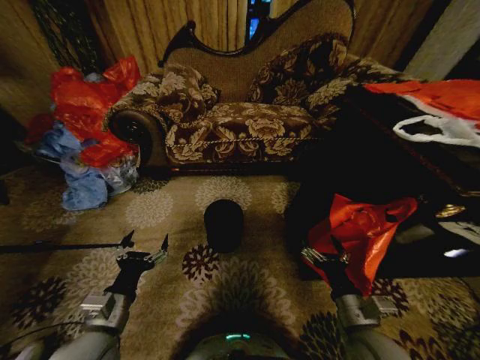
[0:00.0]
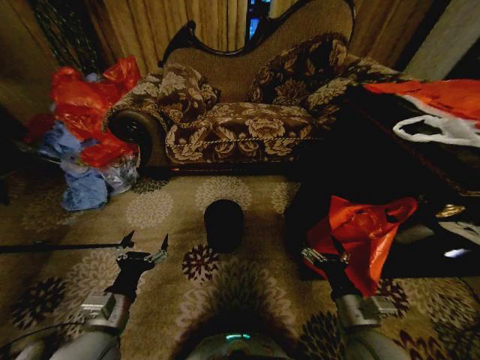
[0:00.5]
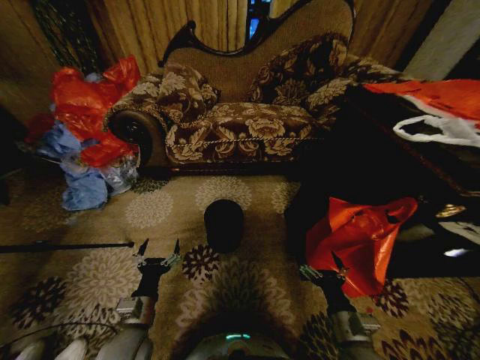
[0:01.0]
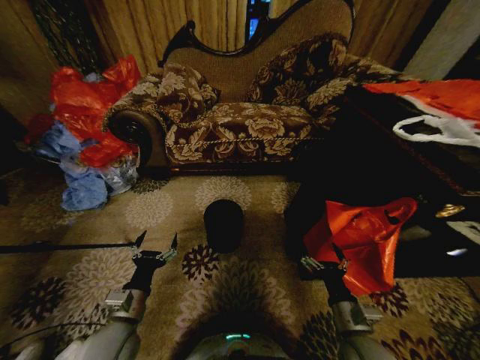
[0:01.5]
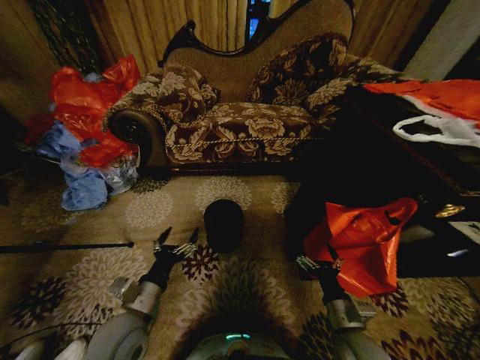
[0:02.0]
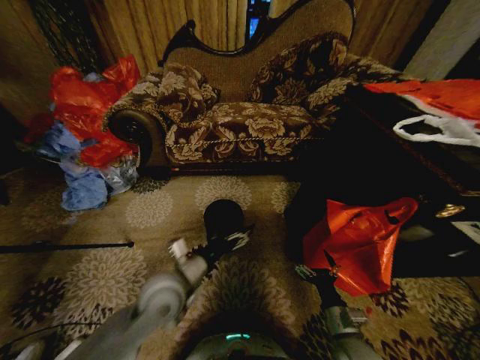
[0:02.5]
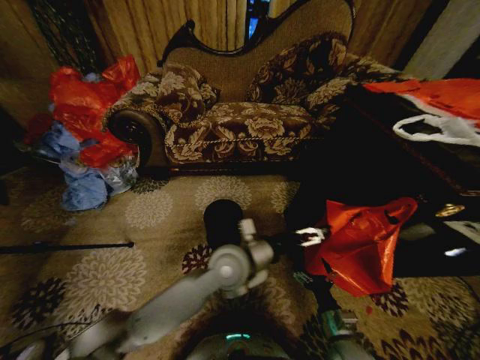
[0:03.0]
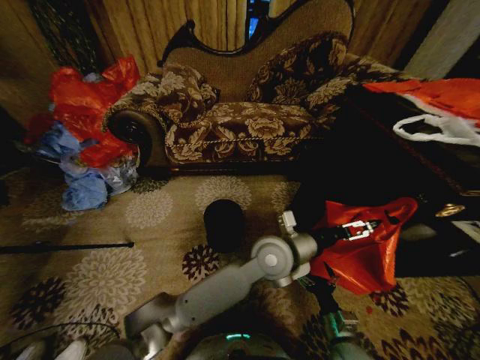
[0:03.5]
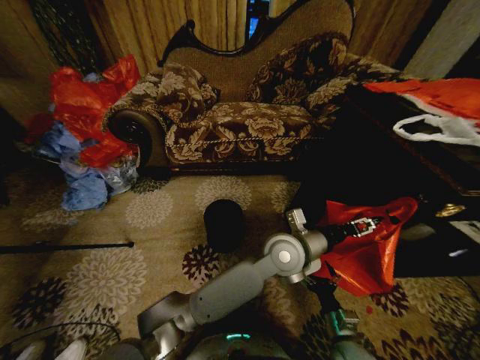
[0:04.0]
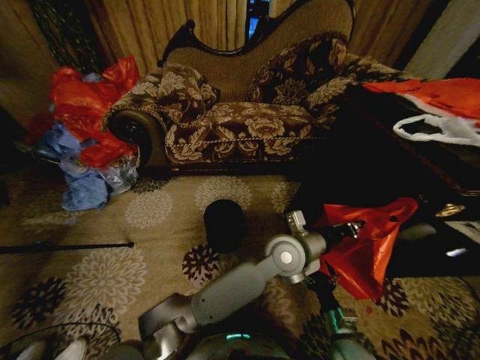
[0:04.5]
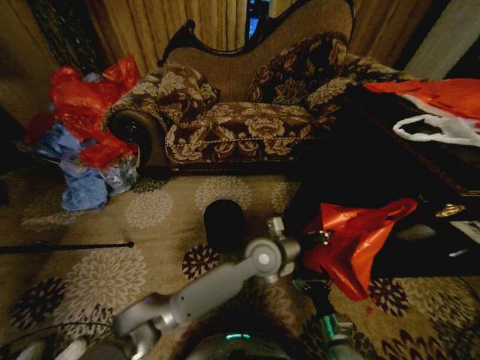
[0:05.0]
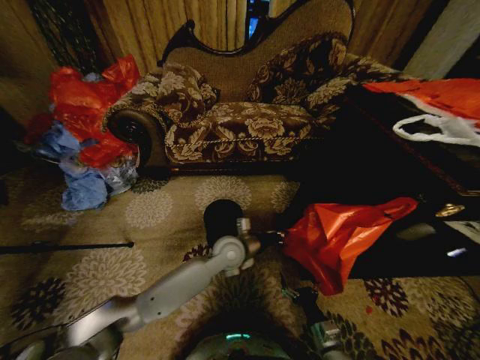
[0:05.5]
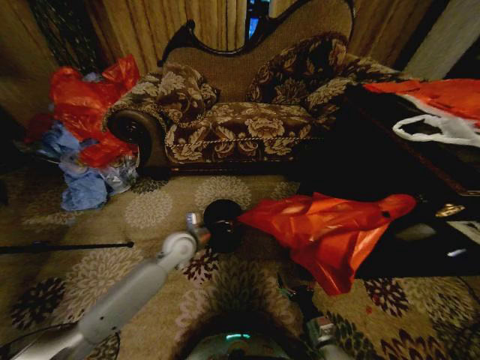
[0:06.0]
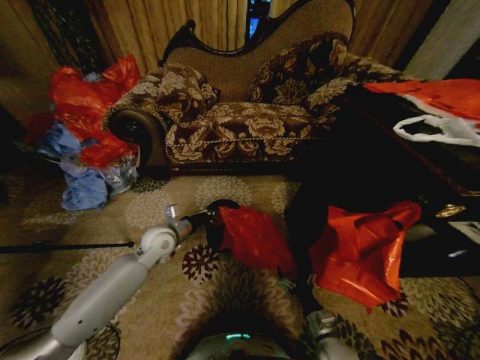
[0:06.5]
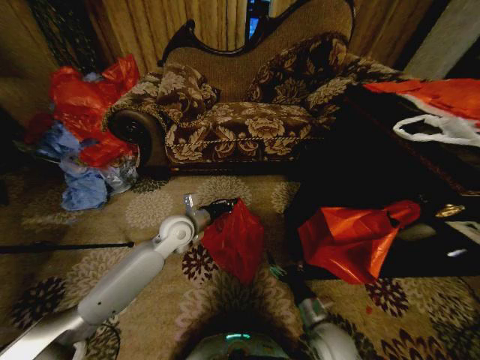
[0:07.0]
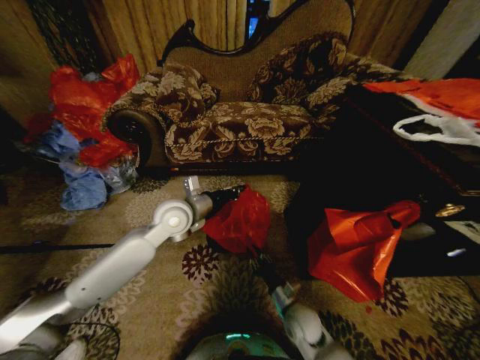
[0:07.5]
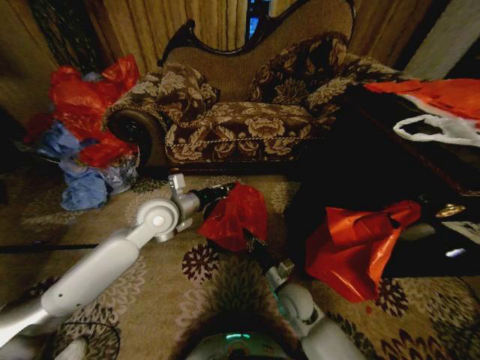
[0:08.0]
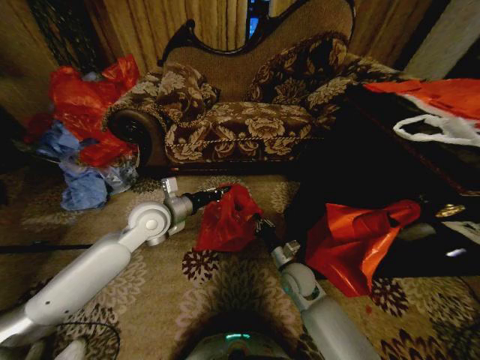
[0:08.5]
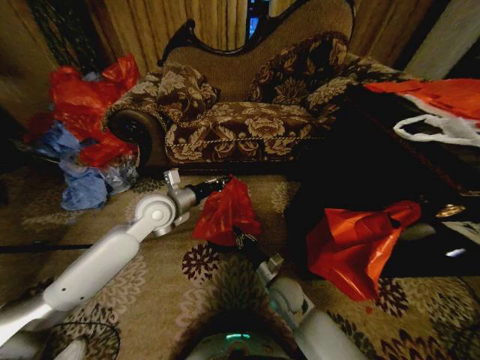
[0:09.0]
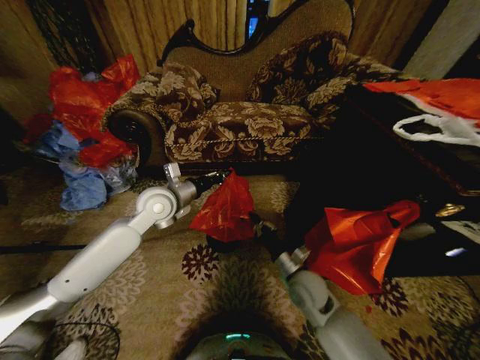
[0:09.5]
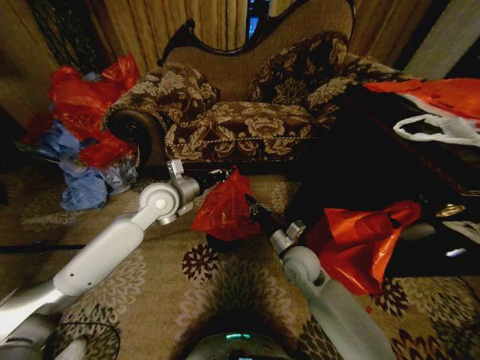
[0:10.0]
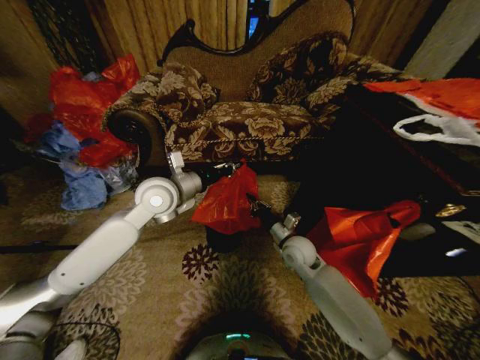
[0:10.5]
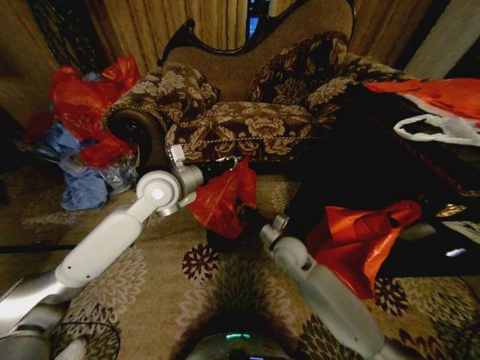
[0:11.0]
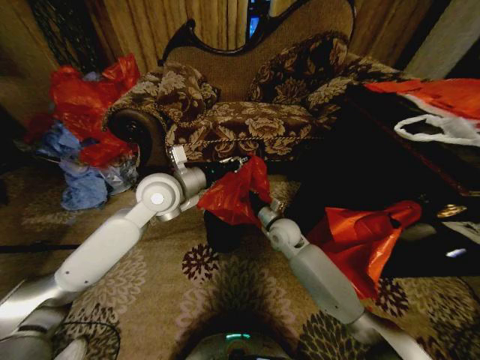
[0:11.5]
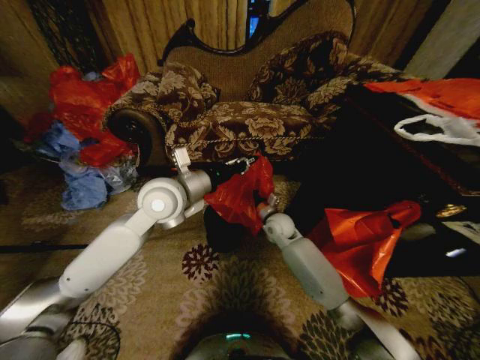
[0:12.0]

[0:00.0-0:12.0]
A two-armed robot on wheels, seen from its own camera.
Task of the whole recording: Place a garbage bag over the trash bin.
0:02.0 to 0:04.0: The right gripper is displaced downward by roughly 5 cm. Meanwhile the left gripper heads to the right and forward, covering some 35 cm, and closes up.
0:04.0 to 0:06.0: The left gripper travels to the left by about 30 cm, and closes; the right gripper moves downward, some 5 cm.
0:06.0 to 0:08.0: The right gripper moves forward, to the left and upward, approximately 20 cm, and closes; the left gripper heads upward, covering some 15 cm.
0:08.0 to 0:10.0: The right gripper is displaced upward and forward by roughly 10 cm.
0:10.0 to 0:12.0: The left gripper shifts by roughly 10 cm; the right gripper heads forward, covering roughly 15 cm.

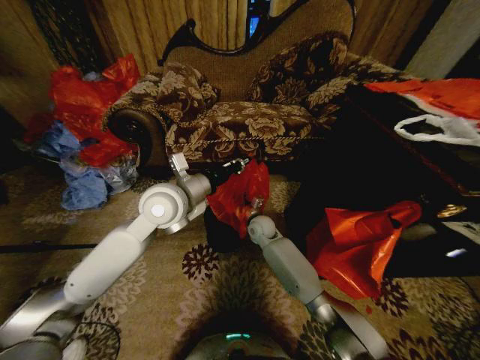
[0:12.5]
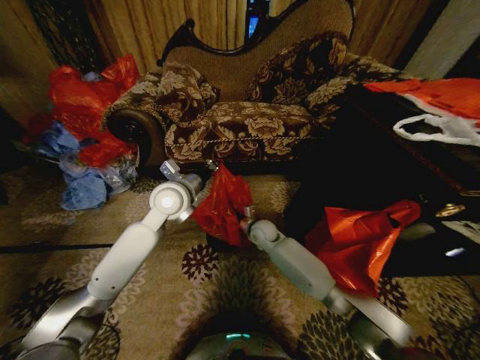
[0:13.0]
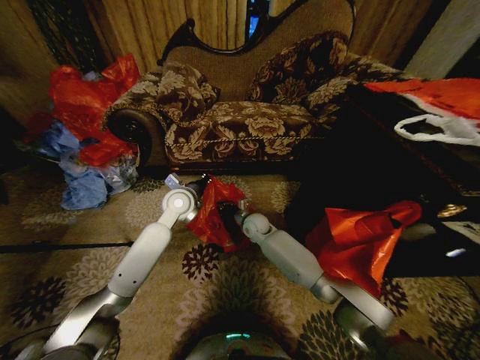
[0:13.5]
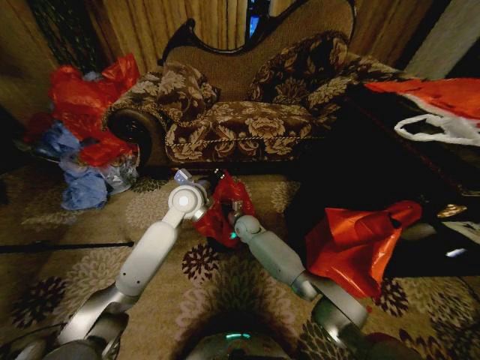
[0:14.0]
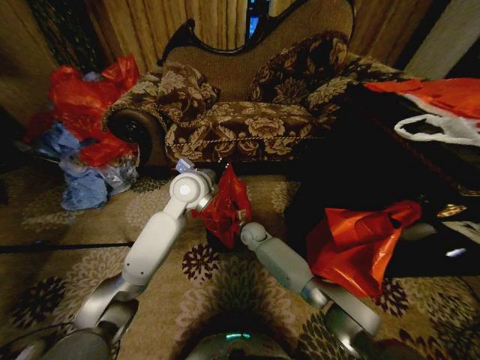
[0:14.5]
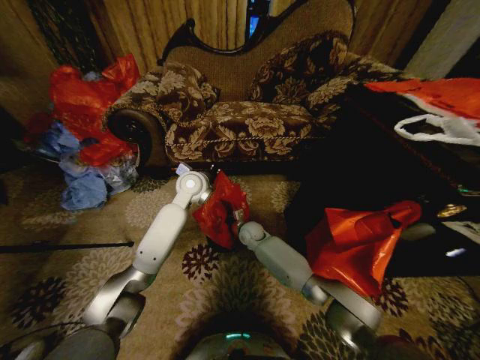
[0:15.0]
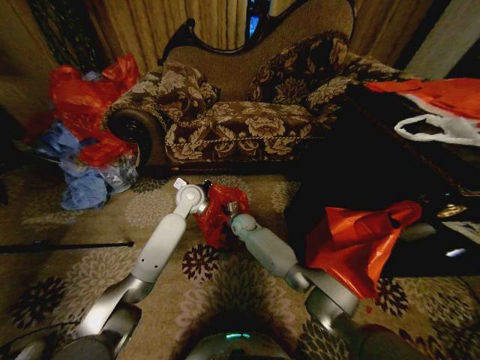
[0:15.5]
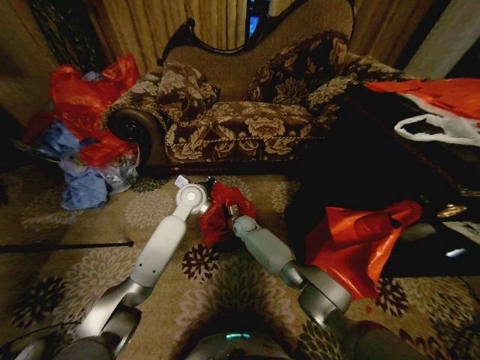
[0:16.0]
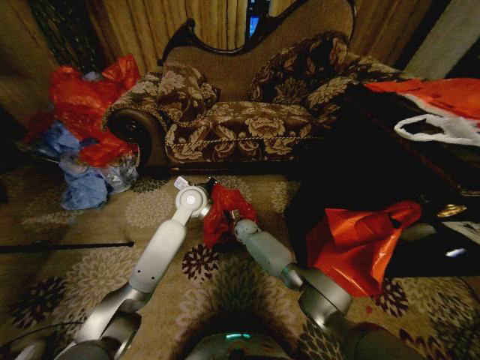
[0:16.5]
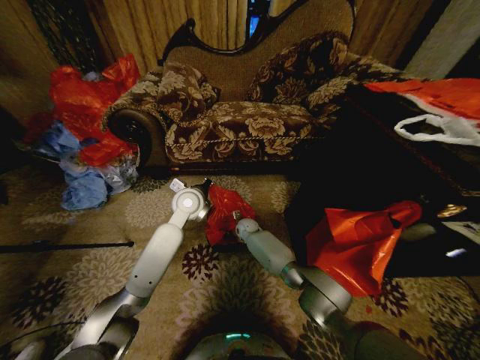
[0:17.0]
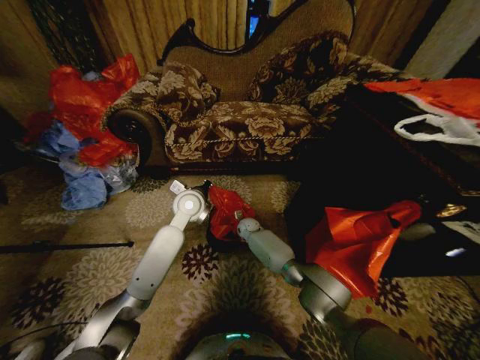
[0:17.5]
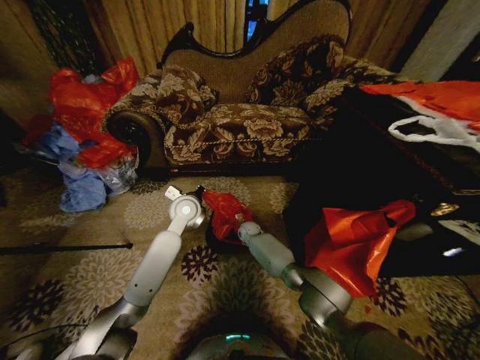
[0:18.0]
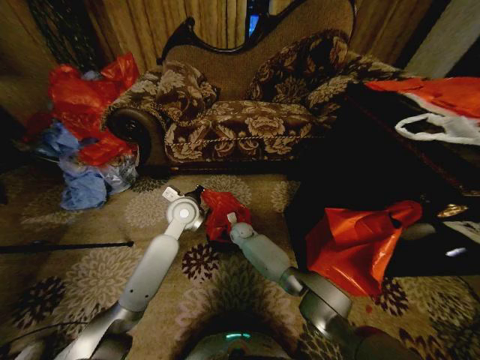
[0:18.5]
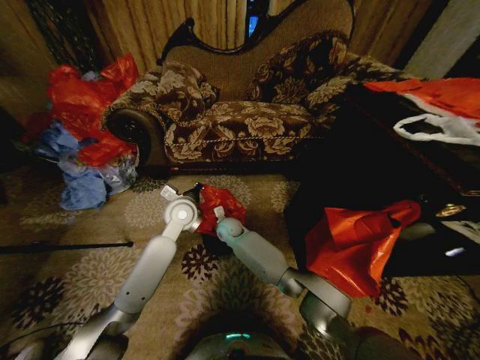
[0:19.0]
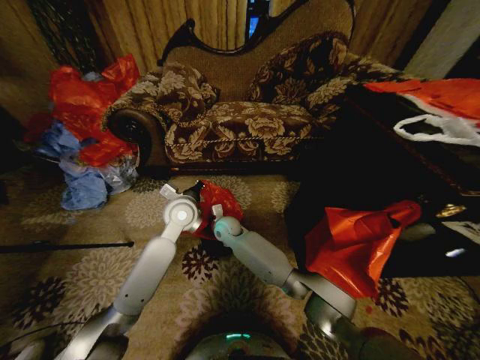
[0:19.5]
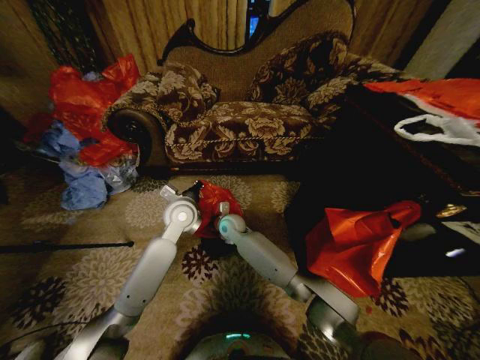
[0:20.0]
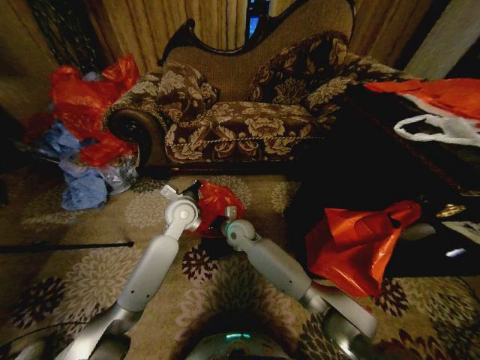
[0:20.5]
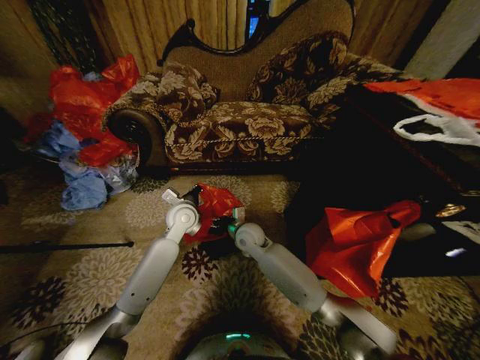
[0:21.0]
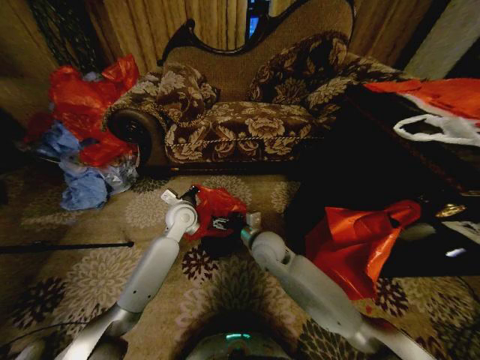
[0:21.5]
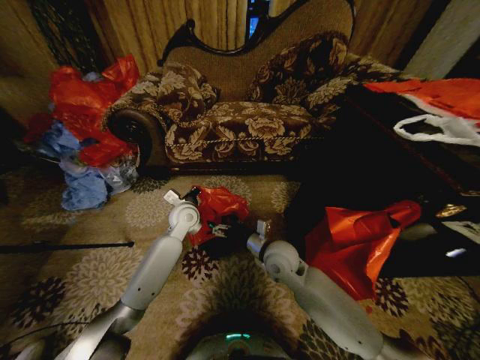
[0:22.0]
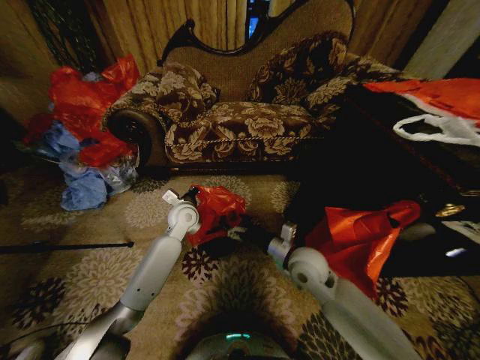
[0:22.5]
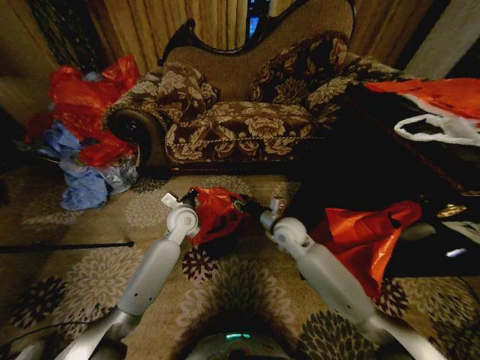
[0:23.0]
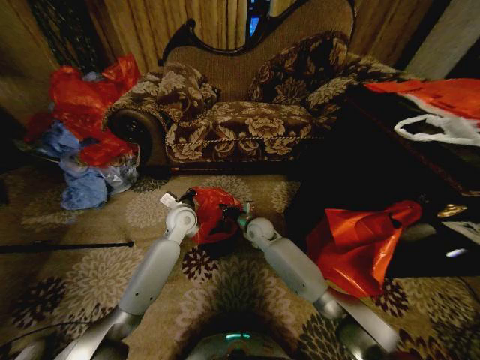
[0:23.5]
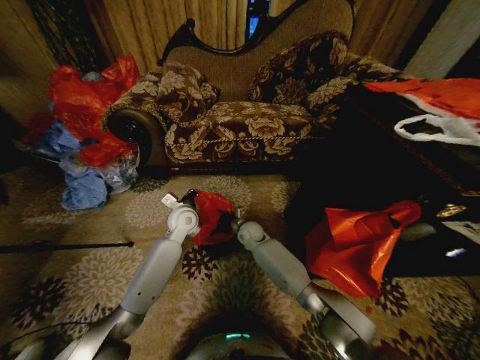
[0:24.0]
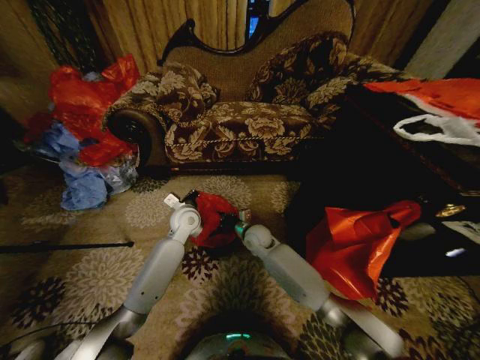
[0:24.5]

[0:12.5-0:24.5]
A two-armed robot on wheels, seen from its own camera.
Task of the whole recording: Place a garbage bag over the trash bin.
0:12.5 to 0:14.5: The left gripper goes roughly 5 cm forward. The right gripper goes roughly 5 cm downward.
0:14.5 to 0:16.5: The right gripper moves roughly 5 cm. The left gripper travels downward by roughly 5 cm.
0:16.5 to 0:18.5: The right gripper opens up.
0:18.5 to 0:20.5: The right gripper moves upward and backward, roughly 10 cm, and opens.
0:20.5 to 0:22.5: The right gripper moves to the right and backward, roughly 20 cm.
0:22.5 to 0:24.5: The right gripper shifts roughly 20 cm forward, to the left and downward, and closes its fingers.

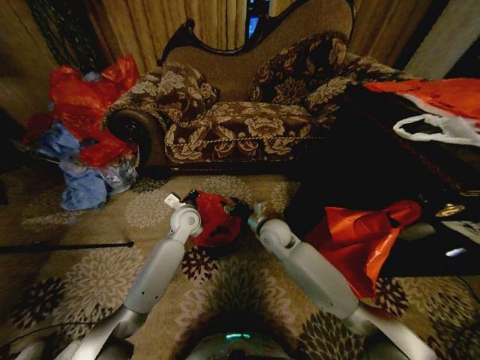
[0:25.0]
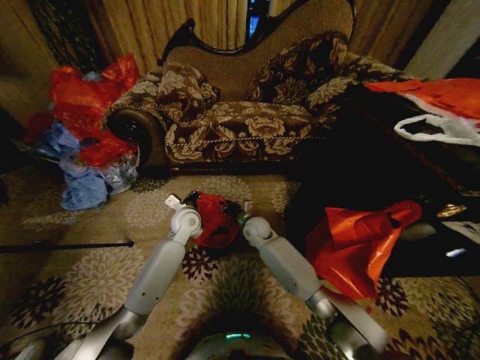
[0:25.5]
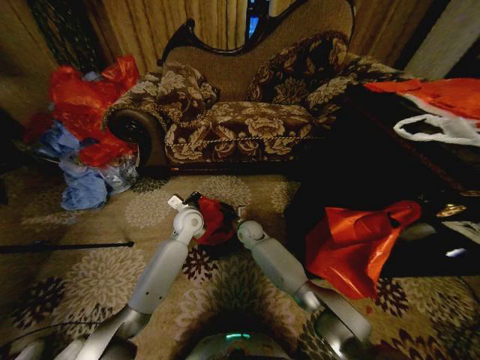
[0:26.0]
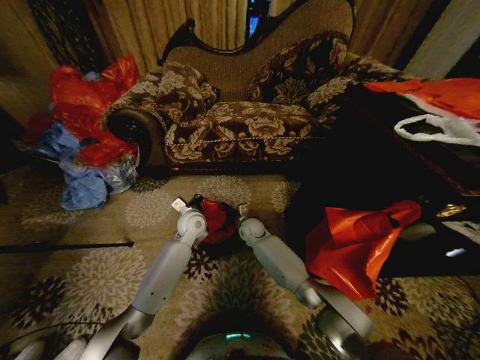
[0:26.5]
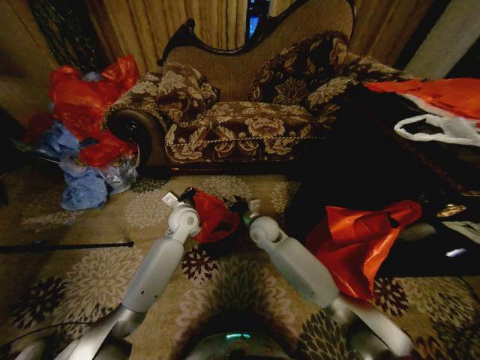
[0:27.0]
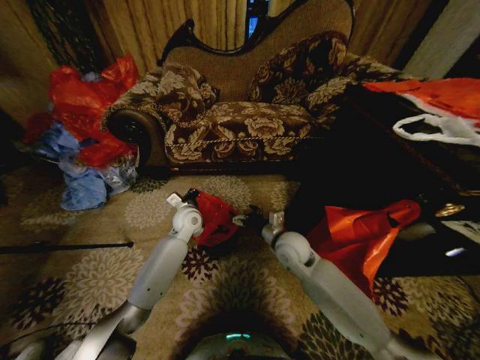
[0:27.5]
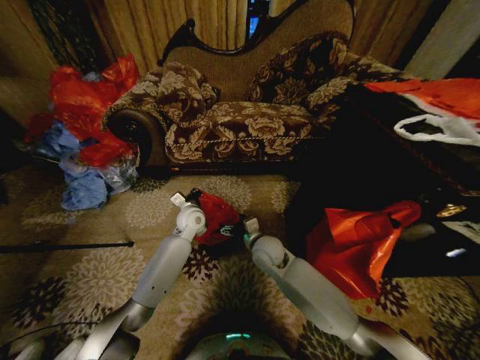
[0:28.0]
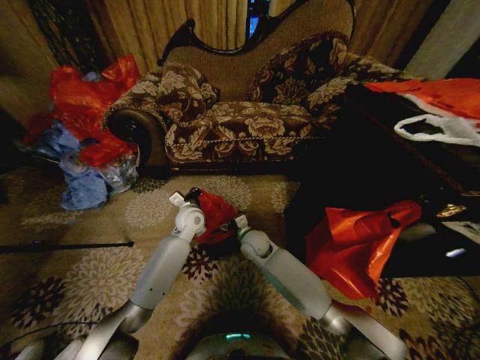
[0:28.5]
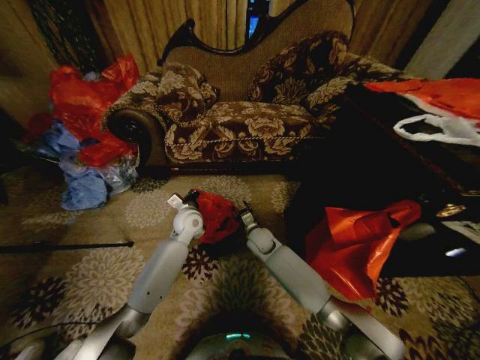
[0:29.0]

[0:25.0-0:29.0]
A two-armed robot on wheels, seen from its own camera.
Task of the whole recording: Place a garbage bag over the trash bin.
0:25.0 to 0:27.0: The right gripper goes downward and returns, some 10 cm each way, and closes, then opens again.
0:27.0 to 0:29.0: The right gripper goes roughly 5 cm downward, reaches roughly 5 cm to the right, then returns, and opens and closes again.
